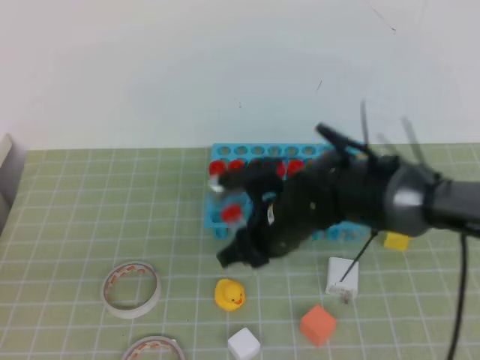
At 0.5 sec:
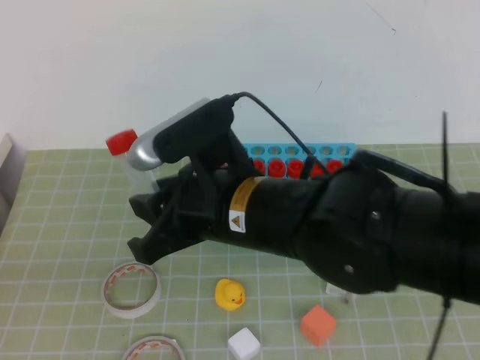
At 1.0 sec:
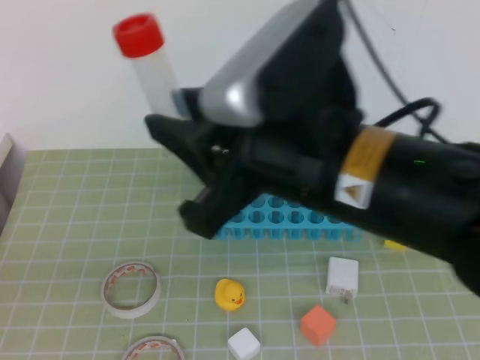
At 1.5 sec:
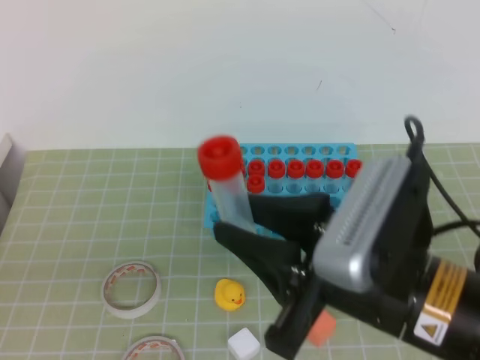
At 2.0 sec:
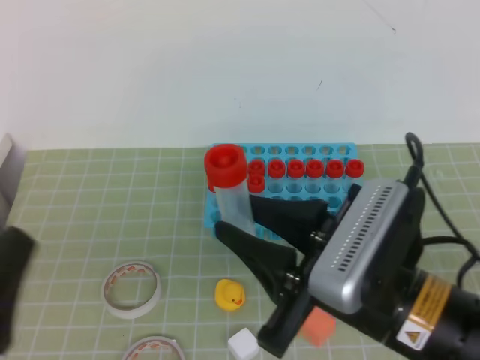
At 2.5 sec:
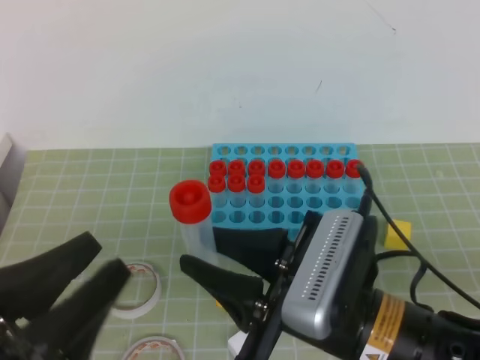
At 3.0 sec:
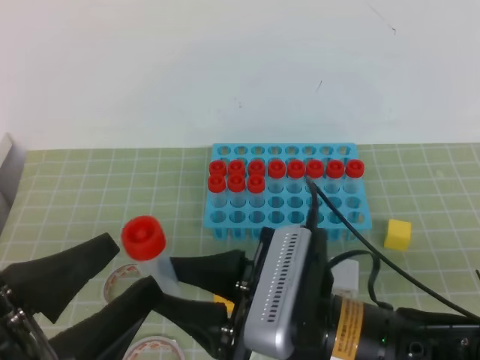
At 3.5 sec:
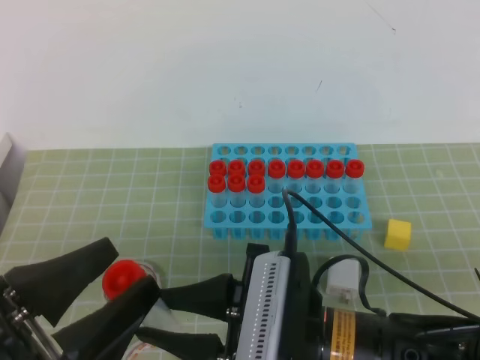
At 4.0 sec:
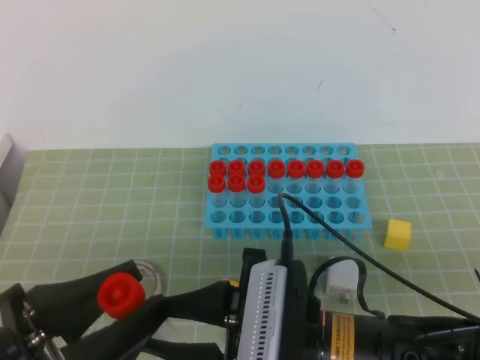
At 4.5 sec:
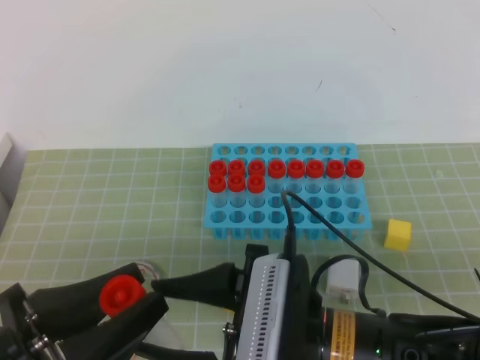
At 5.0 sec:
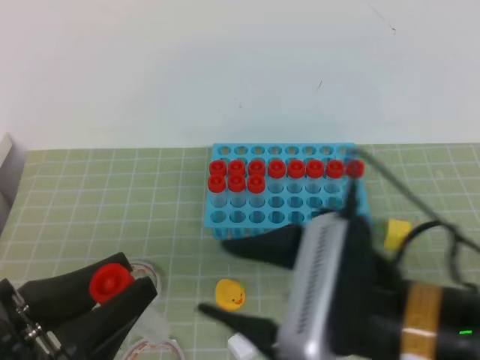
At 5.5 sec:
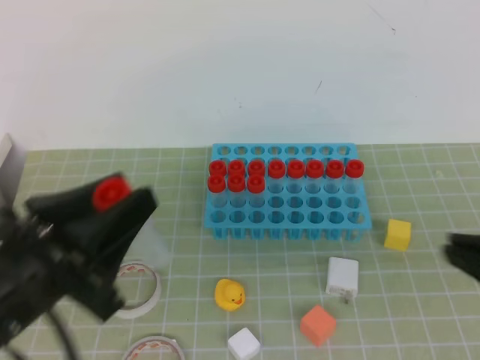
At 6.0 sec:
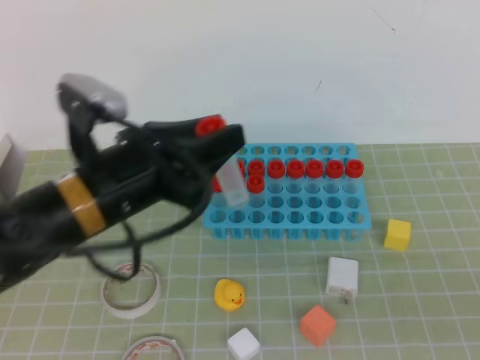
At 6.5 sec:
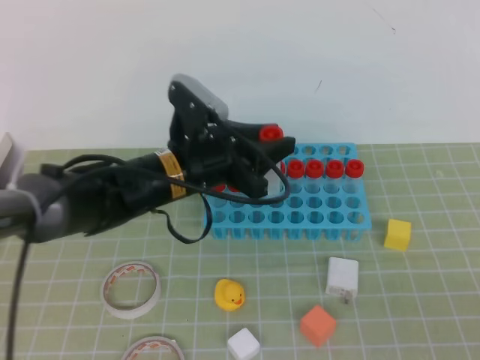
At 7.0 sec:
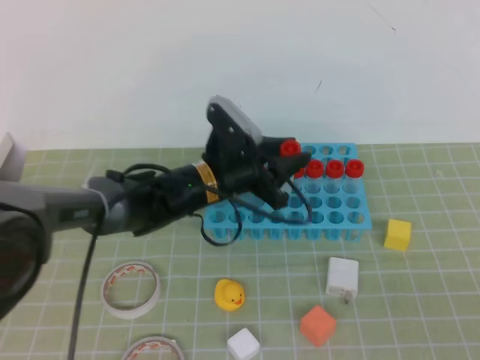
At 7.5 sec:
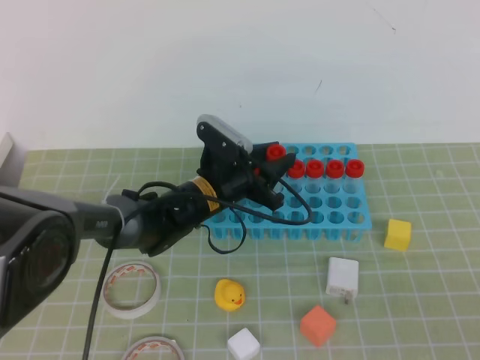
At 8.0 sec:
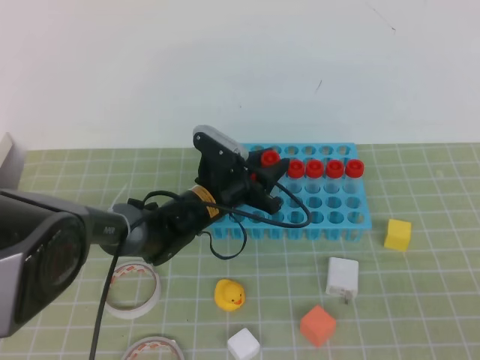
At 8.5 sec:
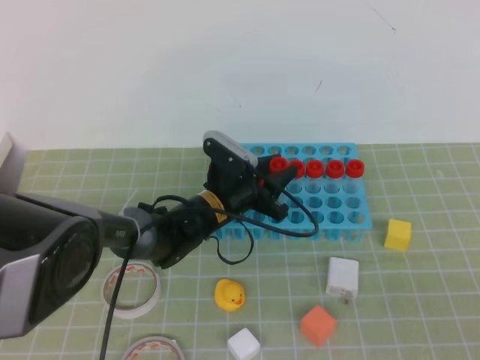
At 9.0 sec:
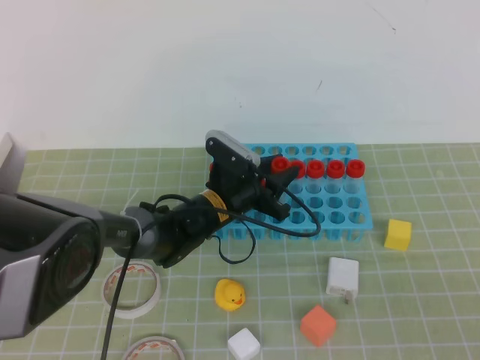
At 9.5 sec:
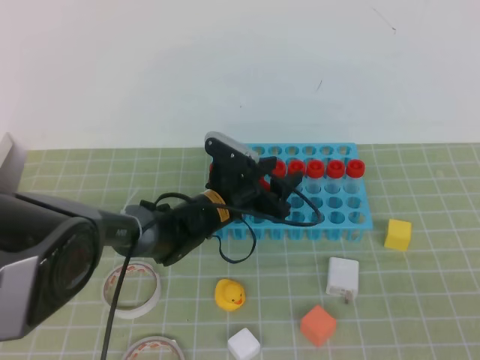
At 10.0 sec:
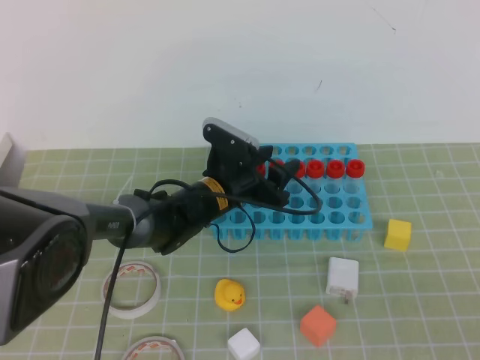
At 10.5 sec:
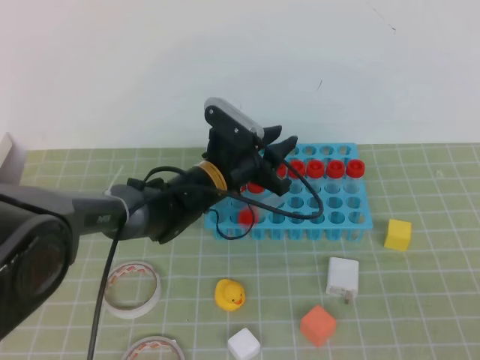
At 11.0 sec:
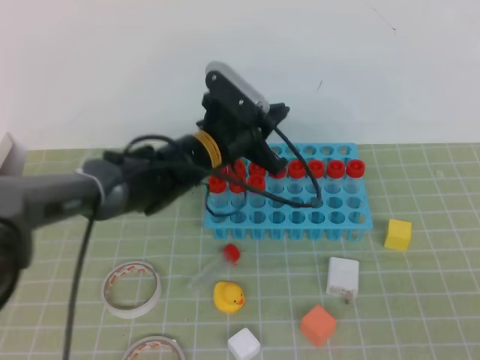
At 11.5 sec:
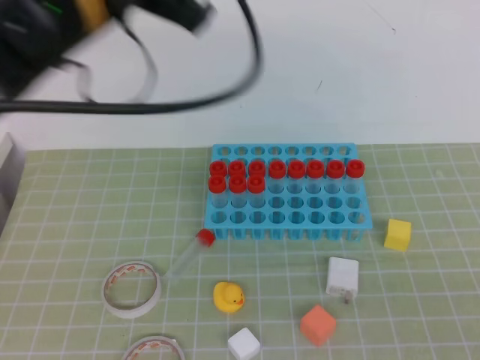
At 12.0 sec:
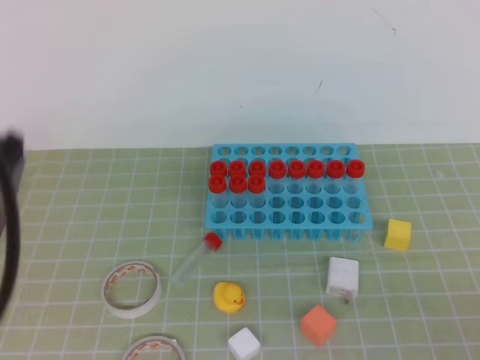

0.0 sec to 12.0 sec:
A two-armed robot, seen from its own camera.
0.0 sec to 2.0 sec: The right gripper goes approximately 20 cm backward, upward and to the right.
2.0 sec to 4.0 sec: The left gripper opens. Meanwhile the right gripper moves to the left, roughly 5 cm.
4.0 sec to 6.0 sec: The left gripper goes about 15 cm forward, while the right gripper shifts about 20 cm to the right, and closes up.
6.0 sec to 8.0 sec: The left gripper is displaced downward, forward and to the right by roughly 25 cm.
8.0 sec to 10.0 sec: The left gripper opens.
10.0 sec to 12.0 sec: The left gripper travels upward, backward and to the left by roughly 40 cm, and closes its fingers.

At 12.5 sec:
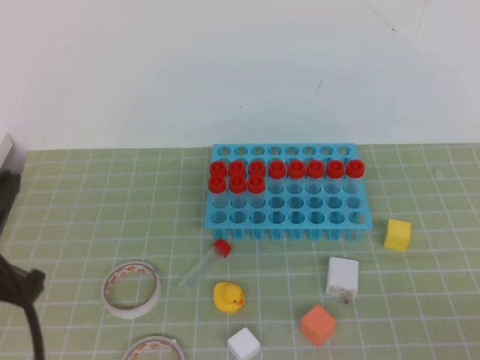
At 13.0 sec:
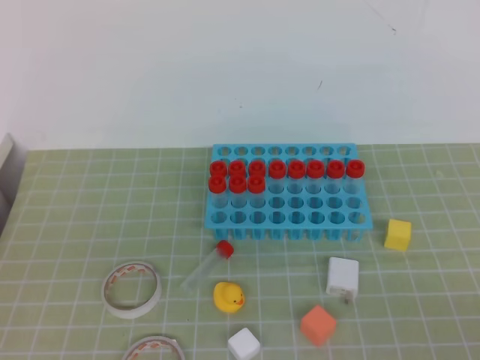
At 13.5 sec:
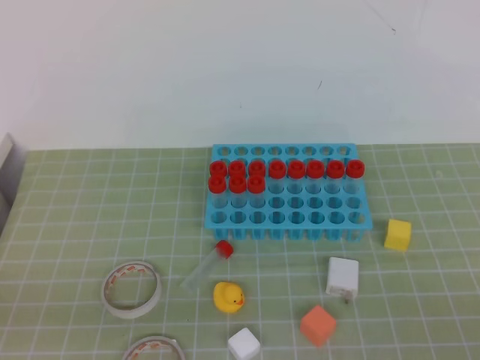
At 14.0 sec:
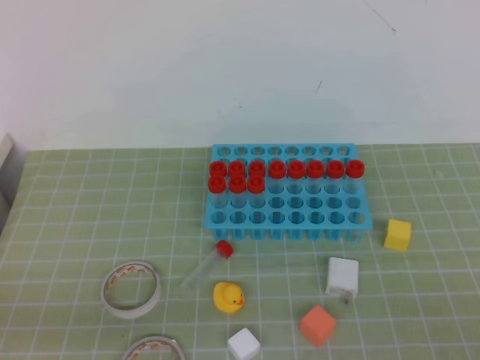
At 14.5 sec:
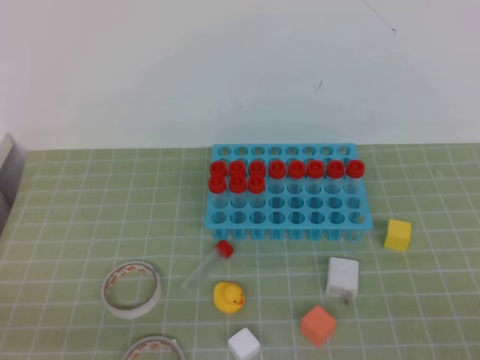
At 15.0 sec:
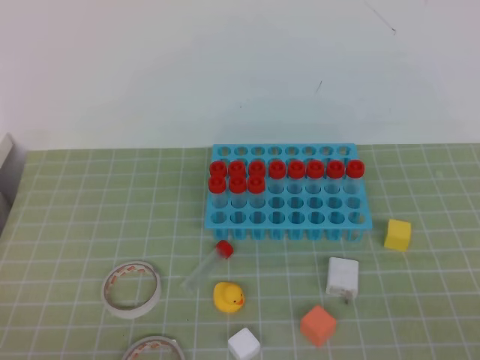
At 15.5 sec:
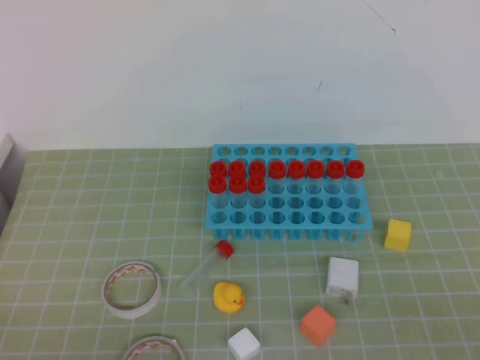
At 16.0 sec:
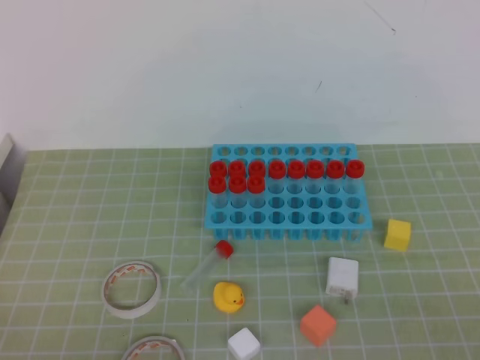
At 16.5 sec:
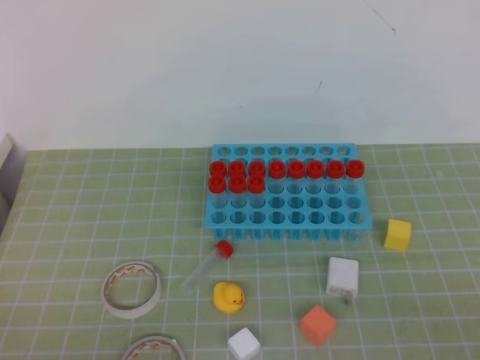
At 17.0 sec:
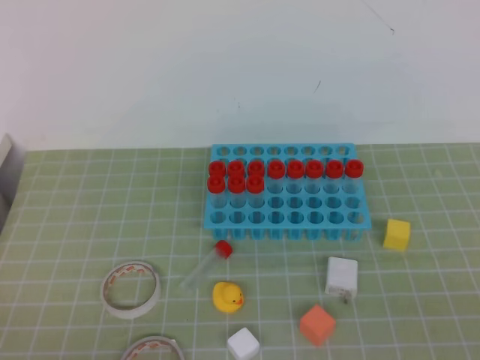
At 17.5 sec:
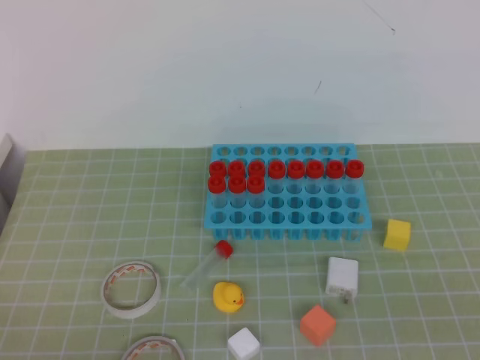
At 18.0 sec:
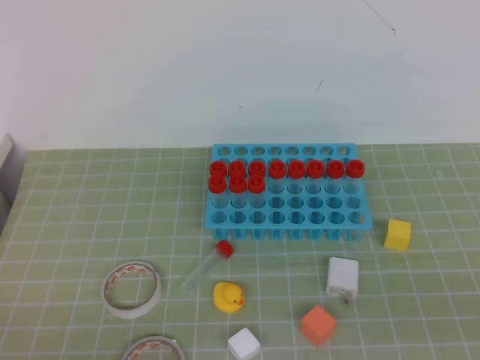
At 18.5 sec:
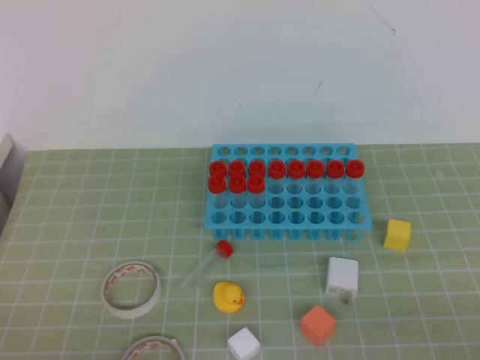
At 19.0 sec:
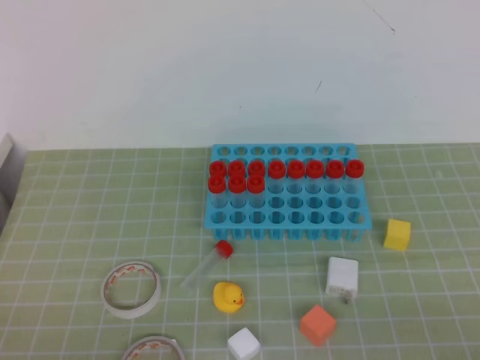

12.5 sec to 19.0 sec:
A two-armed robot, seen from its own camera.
12.5 sec to 14.5 sec: The left gripper heads downward and backward, covering approximately 15 cm.
